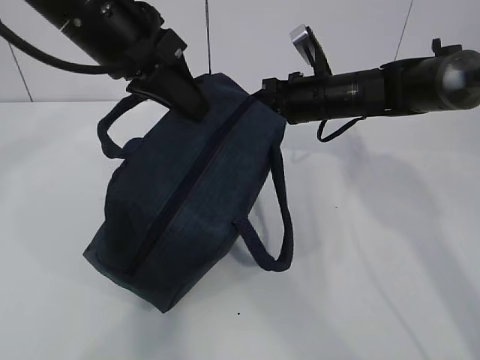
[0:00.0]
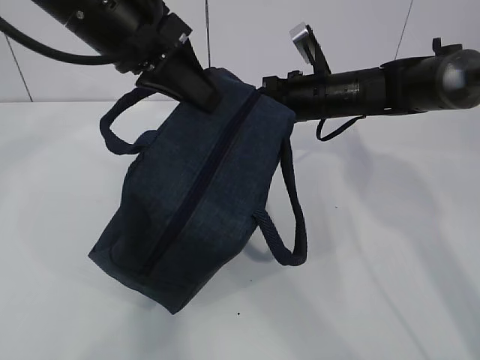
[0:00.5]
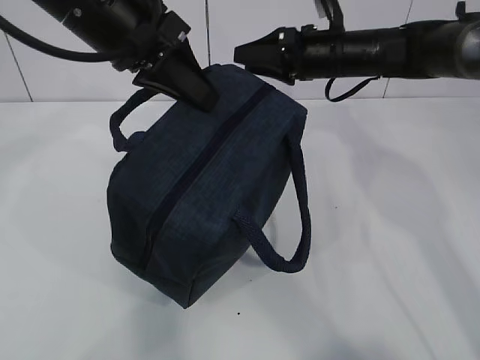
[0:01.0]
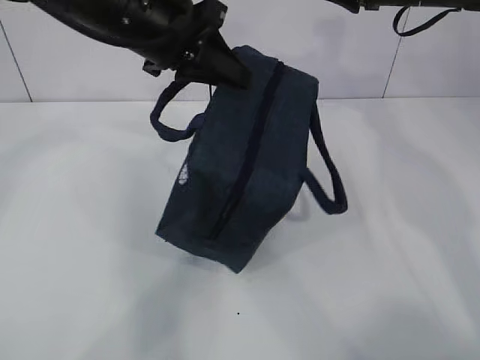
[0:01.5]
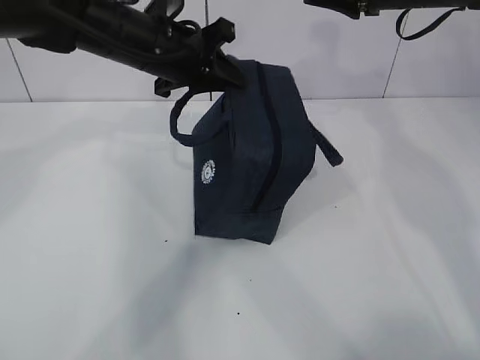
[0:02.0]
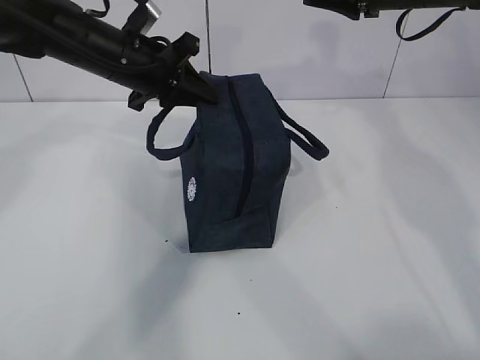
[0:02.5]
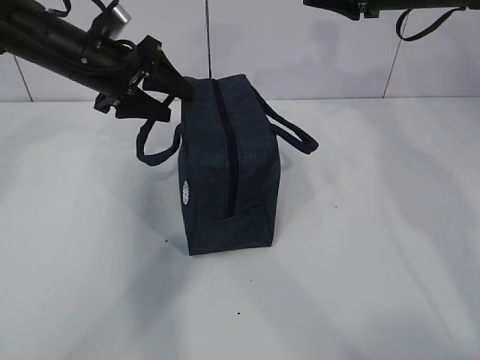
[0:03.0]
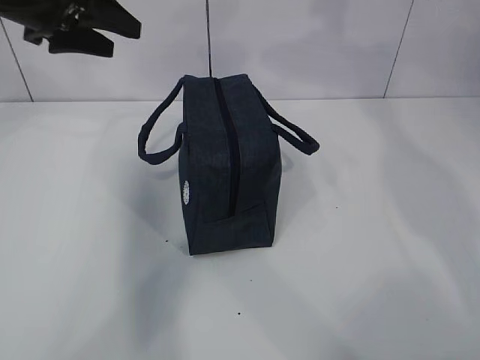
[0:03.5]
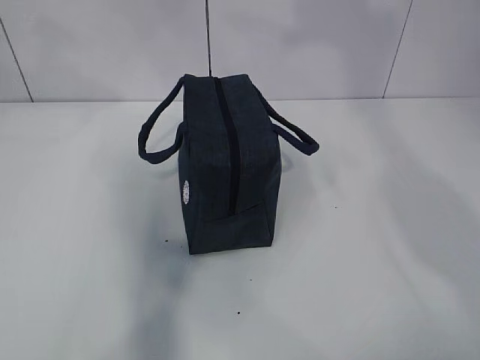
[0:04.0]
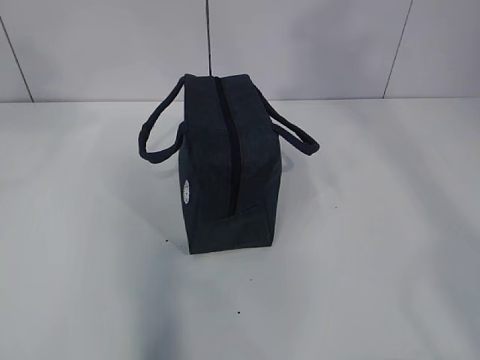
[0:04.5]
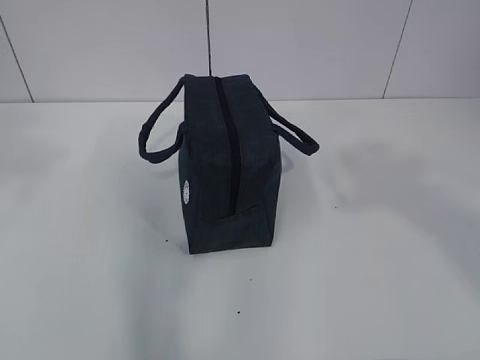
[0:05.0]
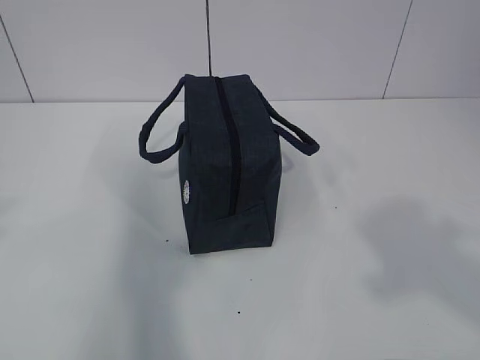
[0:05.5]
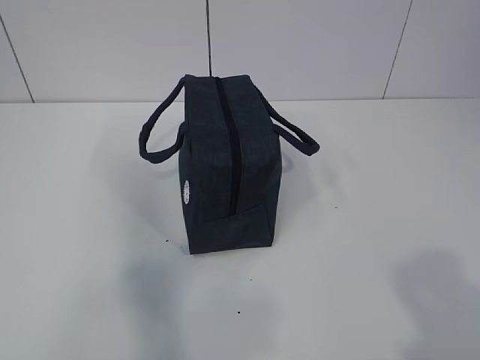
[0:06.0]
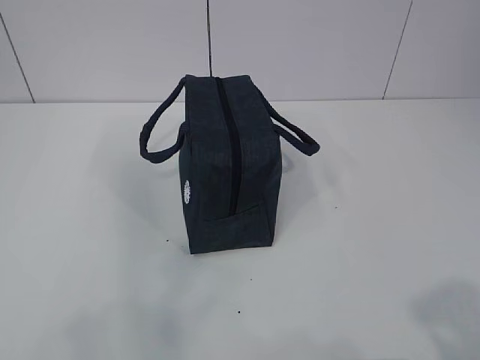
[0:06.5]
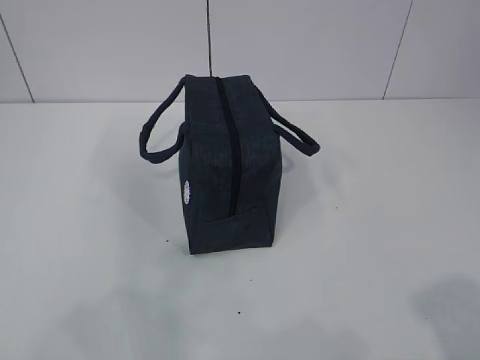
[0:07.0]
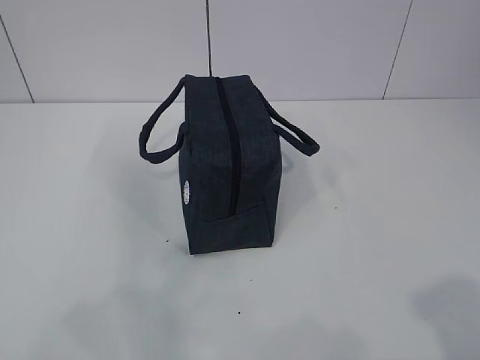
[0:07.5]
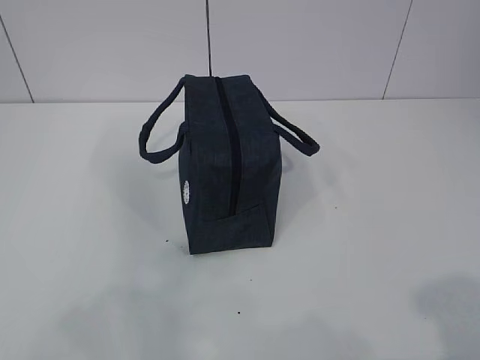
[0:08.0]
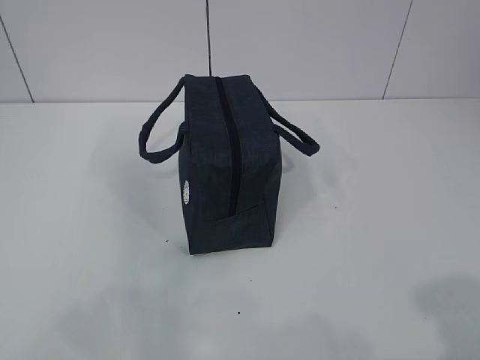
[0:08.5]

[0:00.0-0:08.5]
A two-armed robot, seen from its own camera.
0:00.0 to 0:02.0: The left gripper travels forward and downward by about 10 cm, while the right gripper shifts about 15 cm upward and to the right, and opens its fingers.
0:02.0 to 0:04.0: The left gripper heads upward, to the left and backward, covering about 25 cm, and opens up; the right gripper goes about 25 cm upward and backward.
0:04.0 to 0:06.5: The two grippers go roughly 40 cm backward and downward. The left gripper closes.

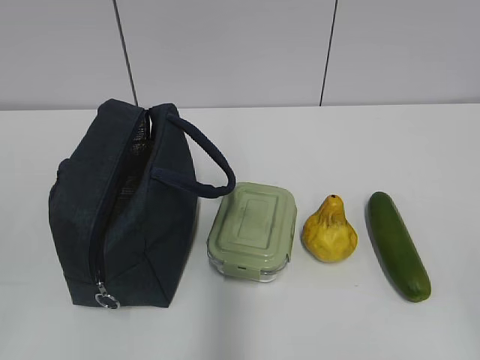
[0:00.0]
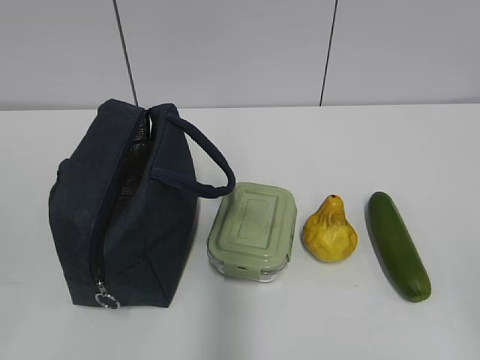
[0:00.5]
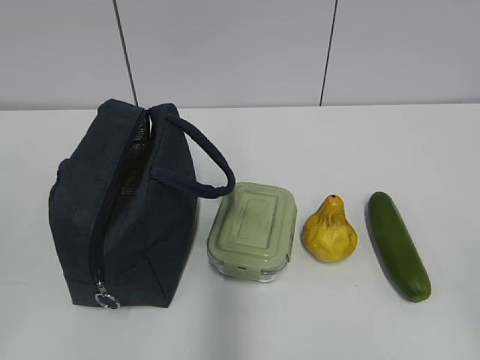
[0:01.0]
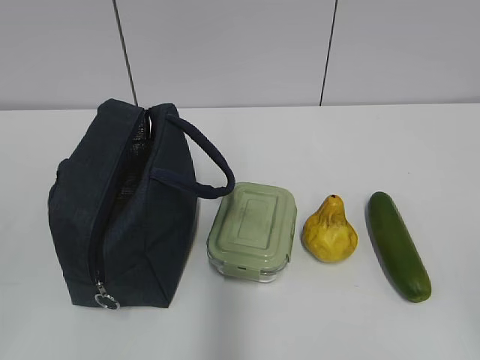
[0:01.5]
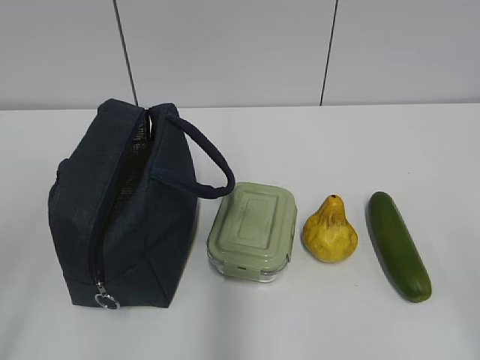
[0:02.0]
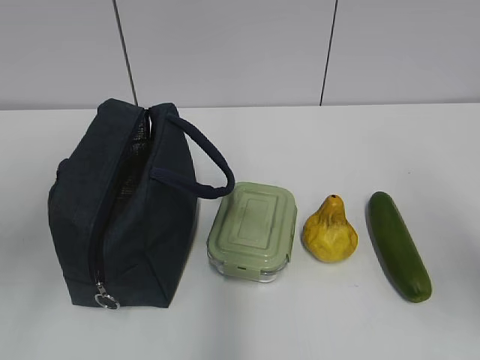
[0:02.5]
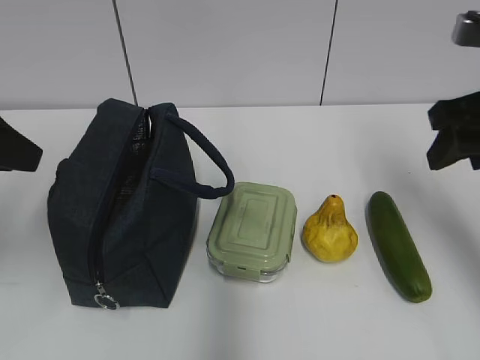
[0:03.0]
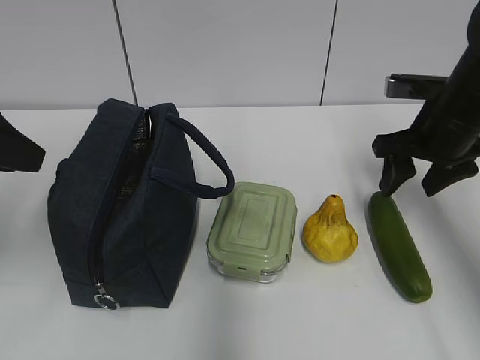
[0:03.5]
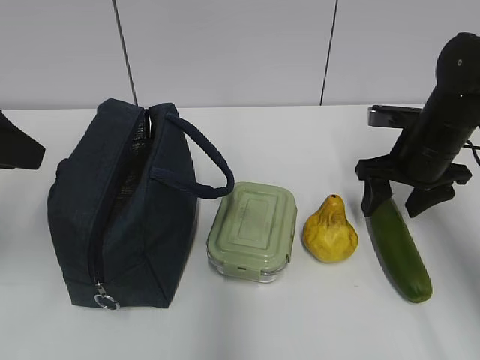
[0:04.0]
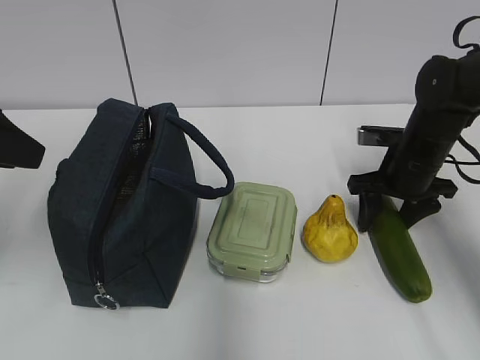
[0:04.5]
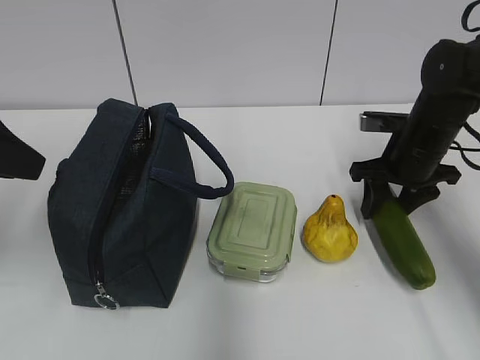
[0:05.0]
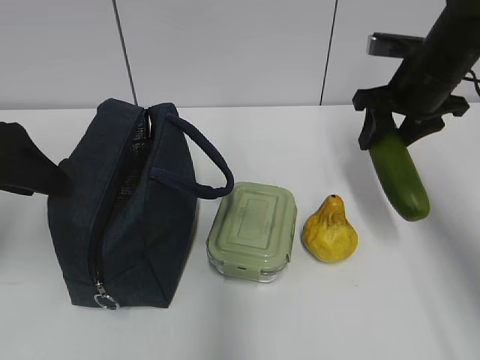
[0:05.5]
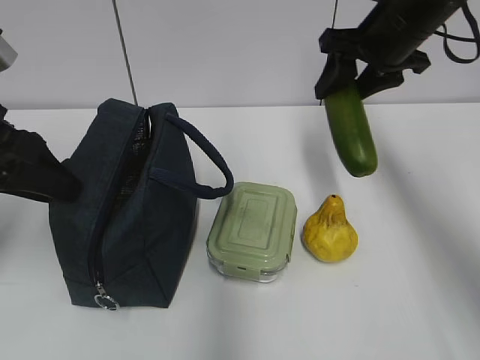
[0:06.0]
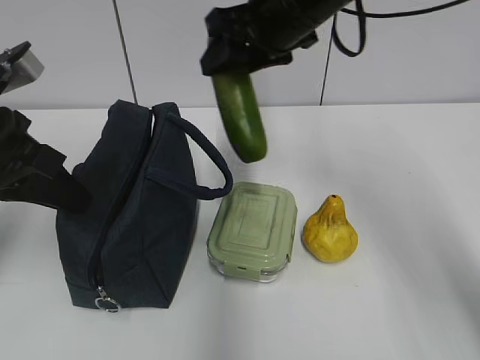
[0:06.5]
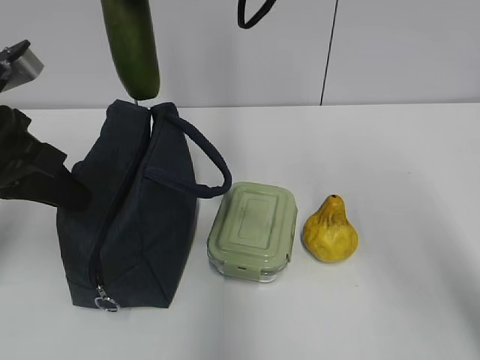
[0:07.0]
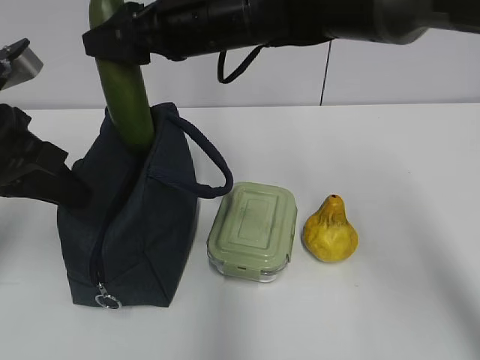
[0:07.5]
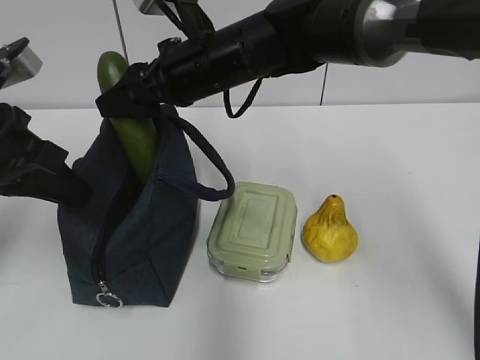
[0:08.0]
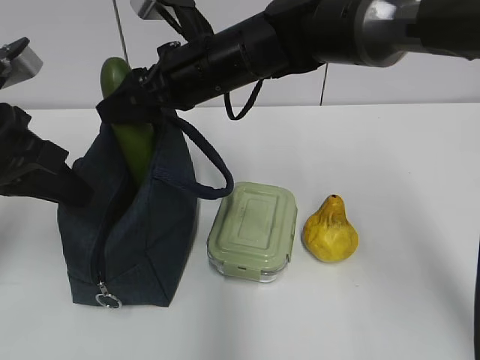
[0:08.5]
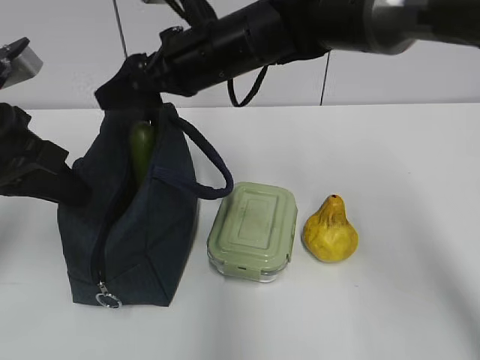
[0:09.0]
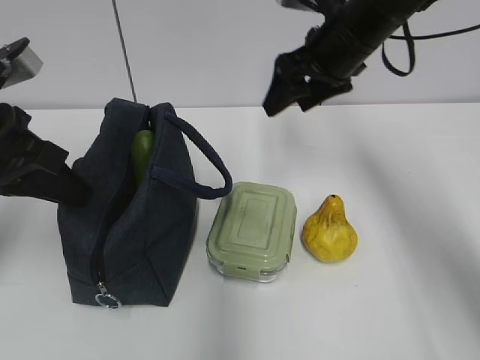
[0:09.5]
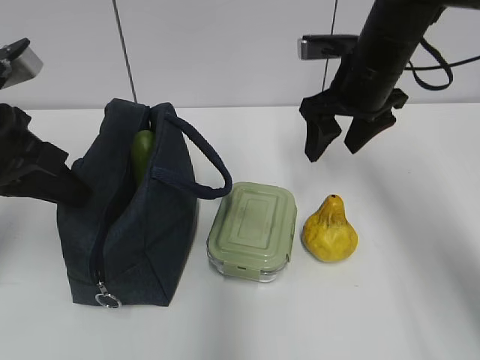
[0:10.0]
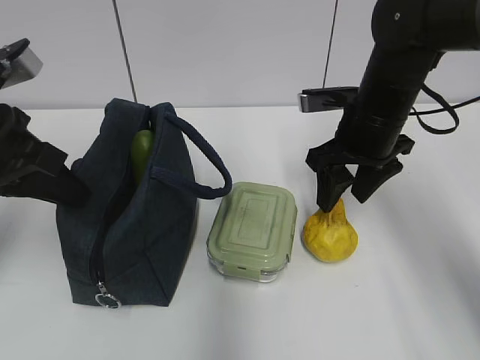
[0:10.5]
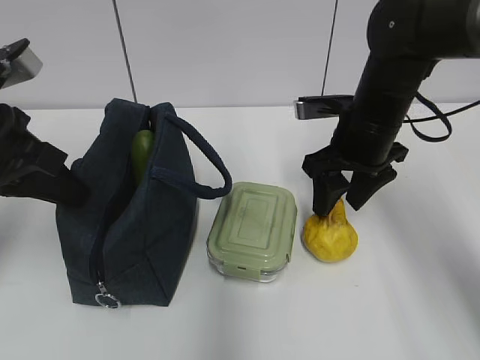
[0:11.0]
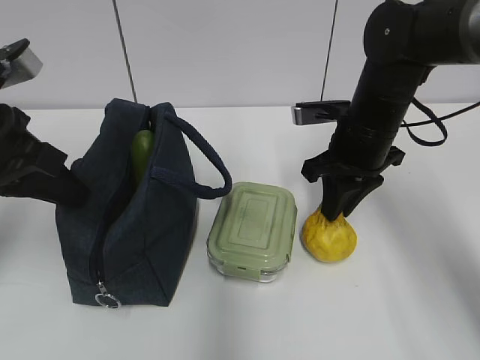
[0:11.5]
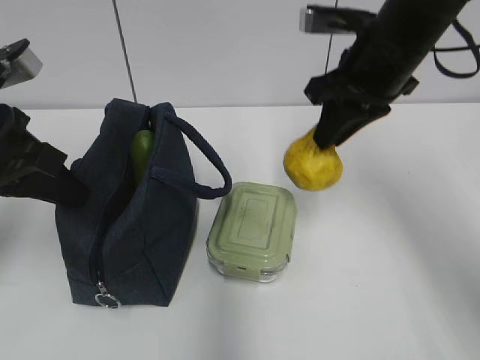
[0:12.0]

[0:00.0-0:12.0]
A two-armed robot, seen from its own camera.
Step, 0:00.0 to 0:04.5: Grab the cucumber with your right hand.
Step, 0:05.0 to 0:07.0: Grab the lunch bag with your left hand.
Step, 0:07.5 to 0:09.0: Place it into the bag with your right hand.
Step, 0:09.5 to 0:11.5: Grab the pear with your right hand.
0:02.0 to 0:04.0: The right gripper shifts some 35 cm forward. The left gripper goes roughly 15 cm forward.
0:04.0 to 0:06.0: The left gripper changes place by some 5 cm. Meanwhile the right gripper heads upward, covering approximately 15 cm.
0:06.0 to 0:08.0: The left gripper closes its fingers; the right gripper heads to the left, covering approximately 20 cm.
0:08.0 to 0:10.0: The right gripper heads to the right, covering about 15 cm.
0:10.0 to 0:12.0: The right gripper travels upward and backward by about 10 cm, and closes.

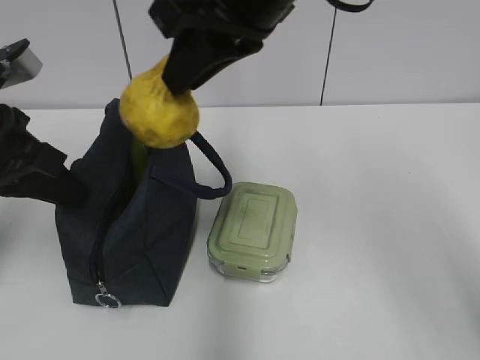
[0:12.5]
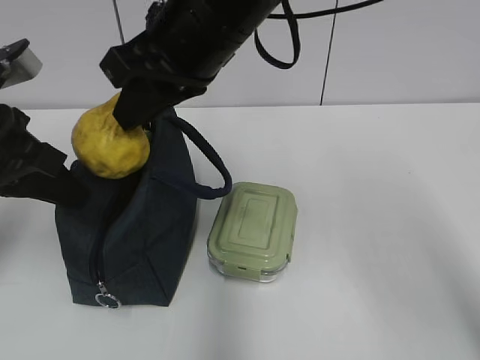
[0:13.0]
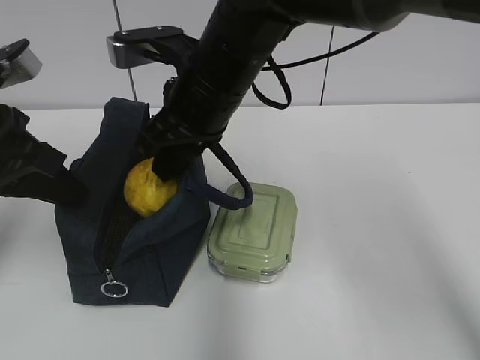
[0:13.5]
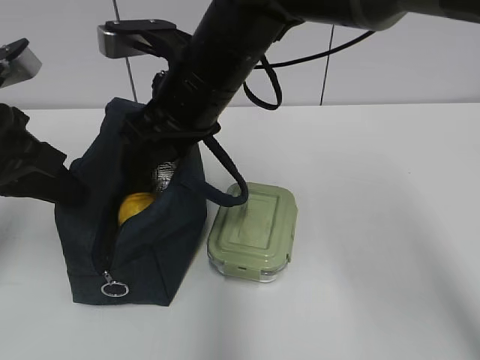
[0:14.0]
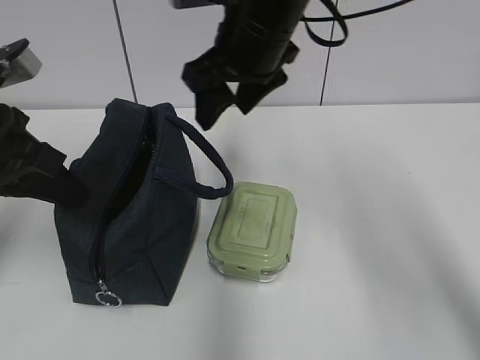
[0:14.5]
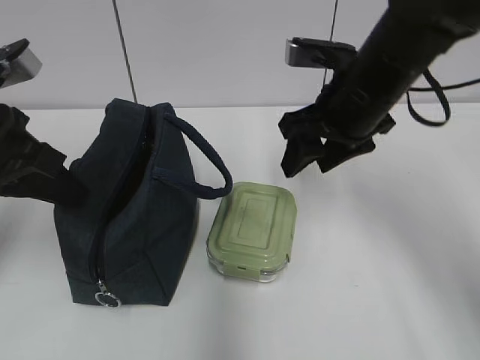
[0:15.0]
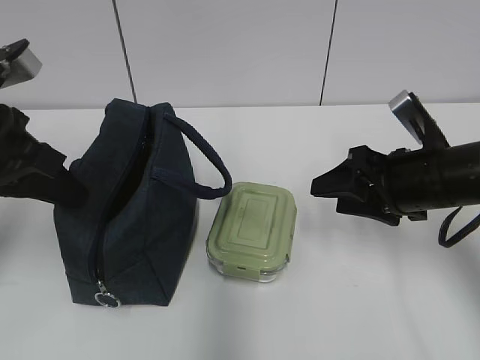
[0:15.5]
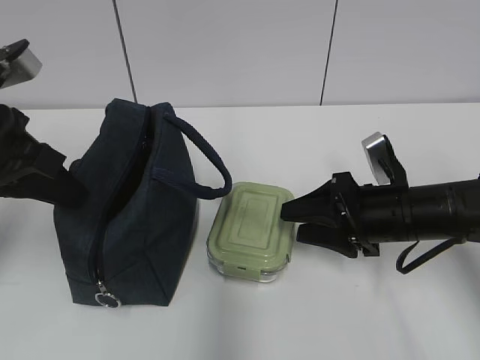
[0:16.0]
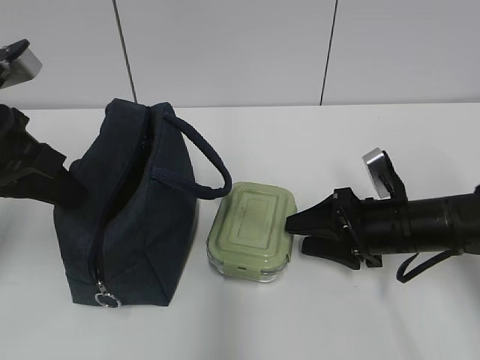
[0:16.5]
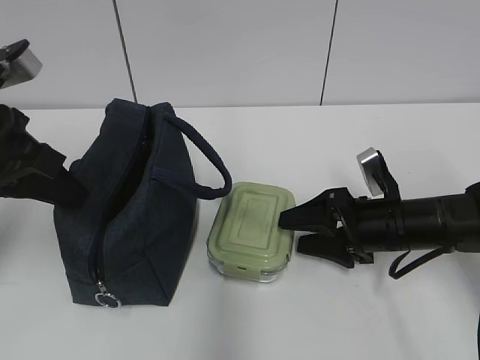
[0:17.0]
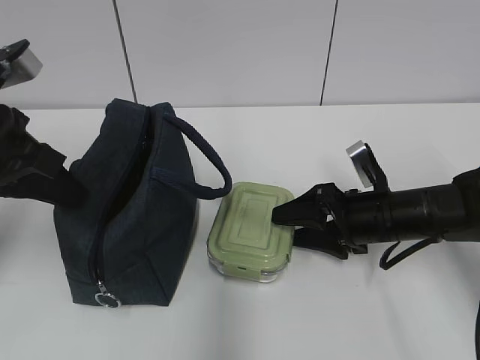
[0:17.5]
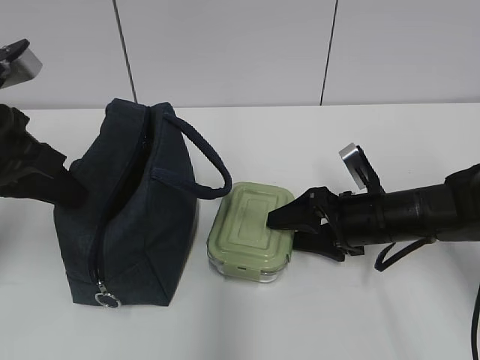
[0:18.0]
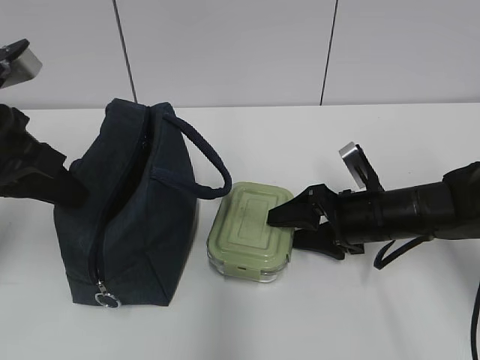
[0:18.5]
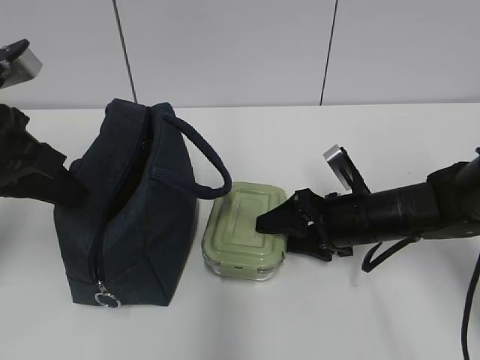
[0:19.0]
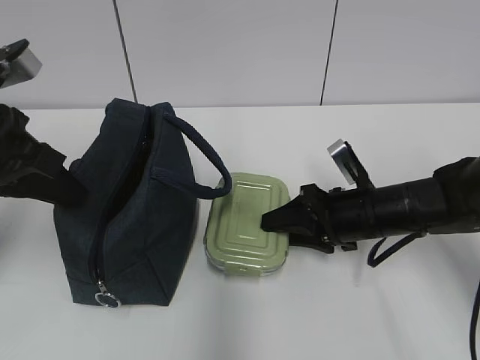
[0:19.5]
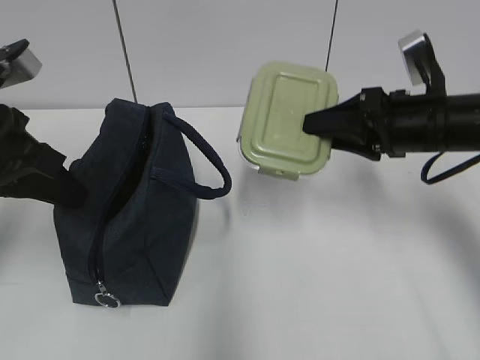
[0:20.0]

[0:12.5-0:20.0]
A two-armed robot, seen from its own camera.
Step, 0:12.5 to 0:14.0: Place it into the bag with your right hand.
Step, 0:14.5 to 0:19.0: Grab the lunch box with your right hand.
0:12.5 to 0:14.5: The right gripper is displaced forward and downward by some 10 cm, and opens.
0:14.5 to 0:16.5: The right gripper shifts about 25 cm downward and to the right.
0:16.5 to 0:18.0: The grippers move only a little.
0:18.0 to 0:20.0: The right gripper travels upward by about 15 cm, and closes.
